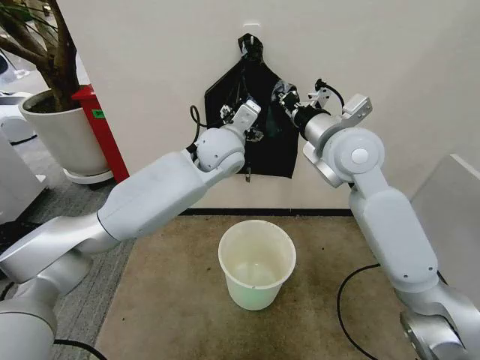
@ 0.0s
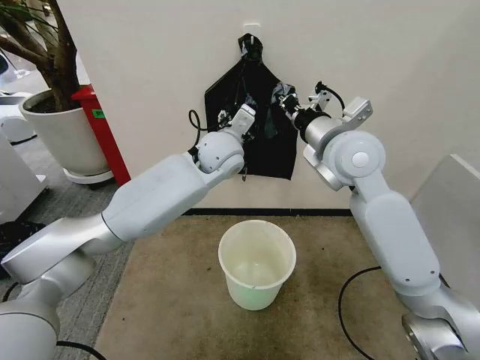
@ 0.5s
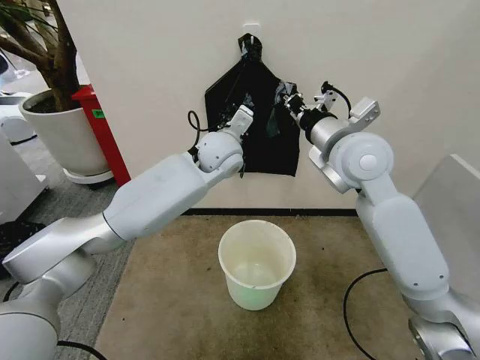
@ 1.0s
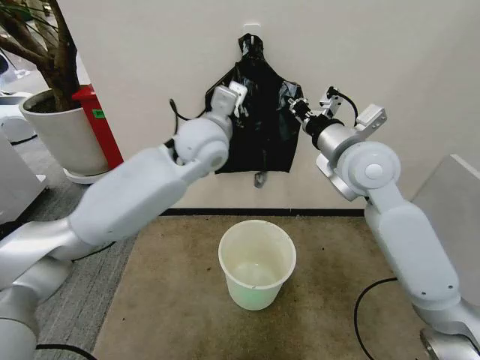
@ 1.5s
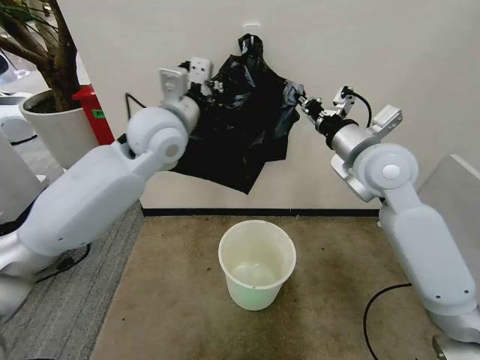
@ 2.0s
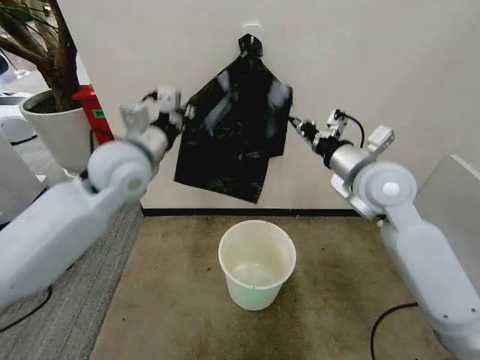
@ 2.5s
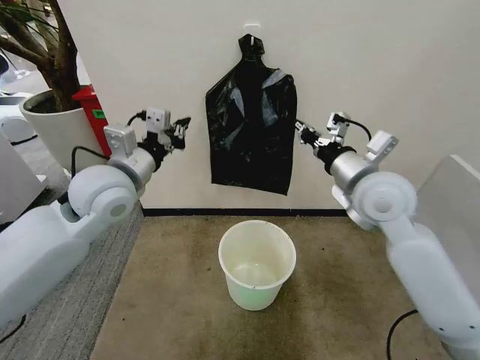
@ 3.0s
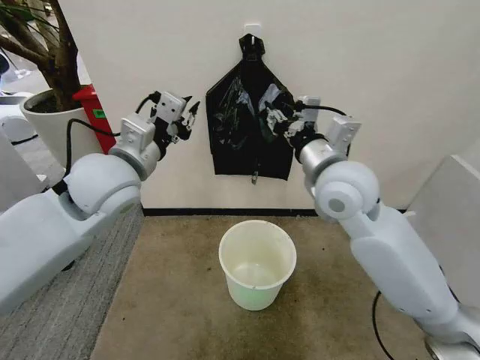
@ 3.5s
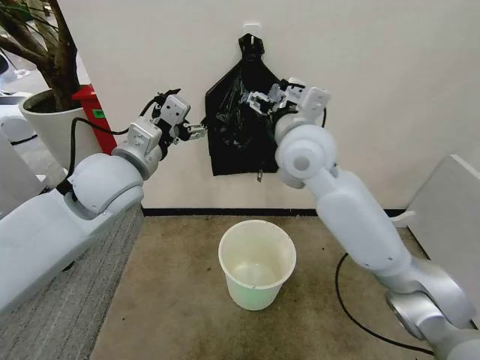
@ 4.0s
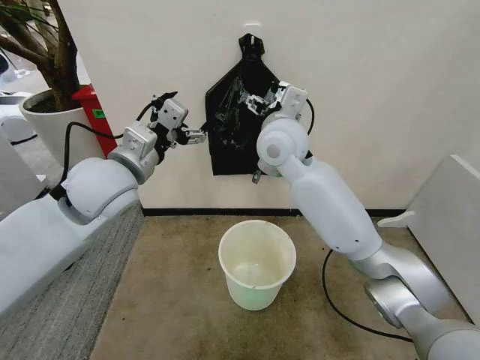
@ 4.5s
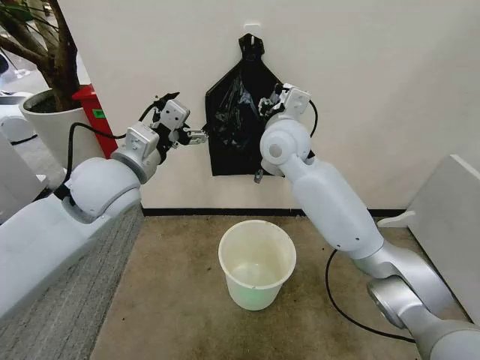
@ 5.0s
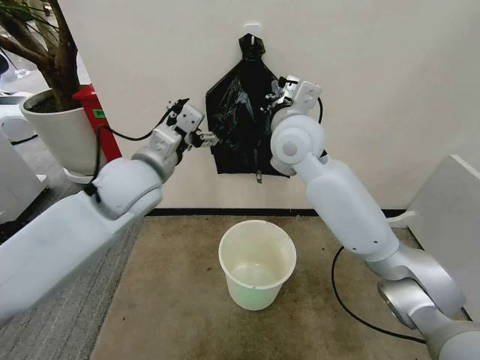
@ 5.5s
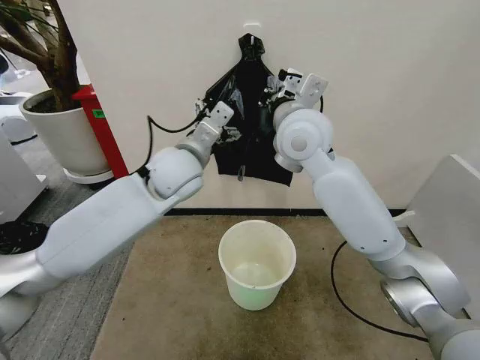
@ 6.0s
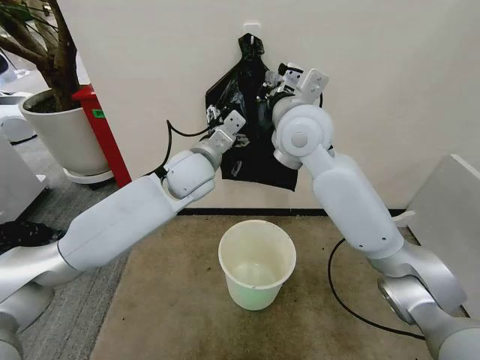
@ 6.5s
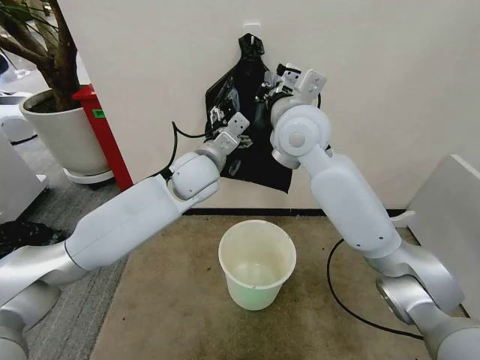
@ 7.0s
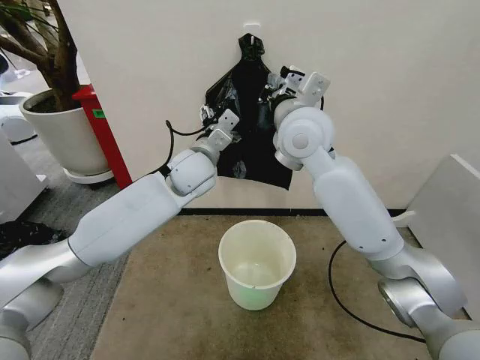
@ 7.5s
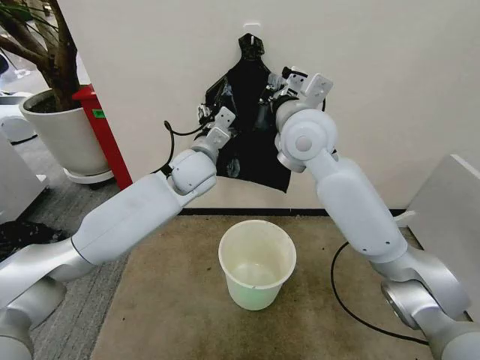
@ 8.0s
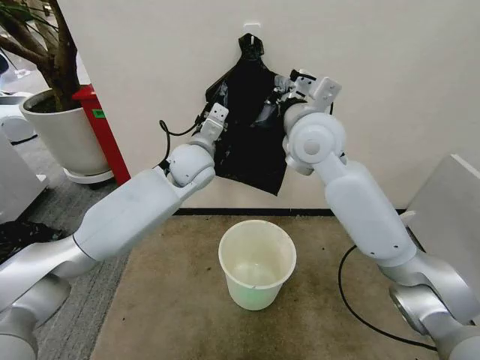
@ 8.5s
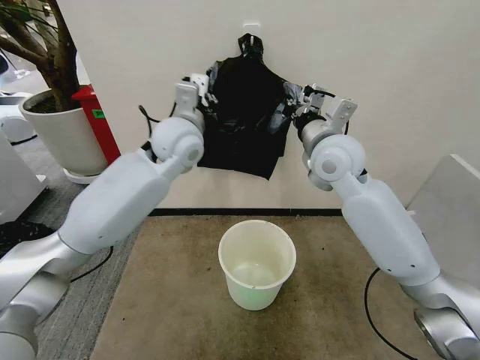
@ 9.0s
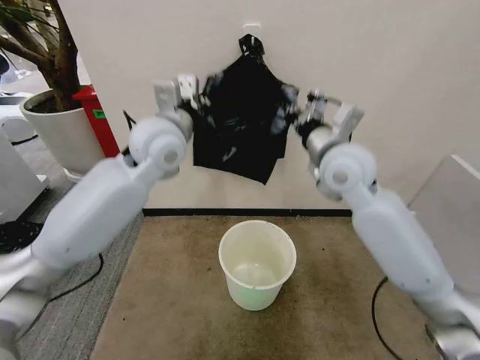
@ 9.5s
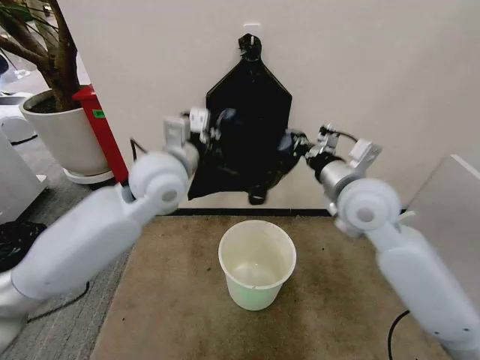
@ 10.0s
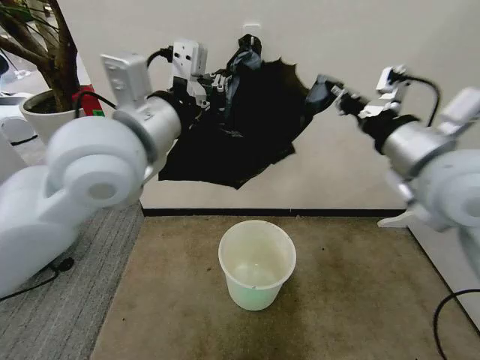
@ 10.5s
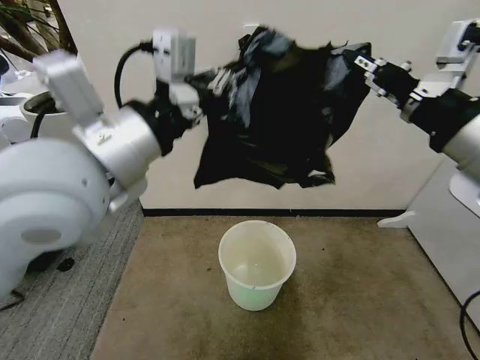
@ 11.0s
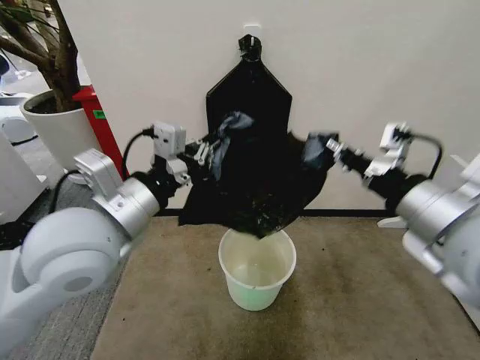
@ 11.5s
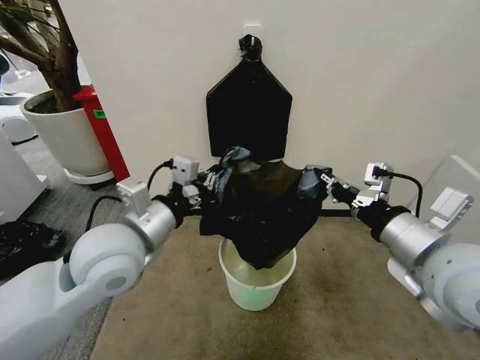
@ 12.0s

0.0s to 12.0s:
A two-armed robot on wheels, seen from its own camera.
Task of the whole recording: Place the garbage bag over the trash bin.
0.0s to 2.0s: The right gripper is displaced to the right by about 5 cm. Meanwhile the left gripper heads to the left and upward, covering some 15 cm, and closes its fingers.
2.0s to 4.0s: The right gripper heads to the left, covering approximately 15 cm, and opens its fingers; the left gripper shifts approximately 10 cm backward and to the left, and opens its fingers.
4.0s to 6.0s: The left gripper moves to the right and forward, about 10 cm; the right gripper closes.
6.0s to 8.0s: The left gripper moves some 5 cm.
8.0s to 10.0s: The left gripper moves backward and upward, roughly 10 cm, and closes its fingers; the right gripper is displaced to the right, downward and backward by approximately 15 cm.
10.0s to 12.0s: The right gripper heads backward and to the right, covering about 15 cm, and goes upward and returns, roughly 15 cm each way. Meanwhile the left gripper shifts about 10 cm backward, and moves about 10 cm upward and comes back.

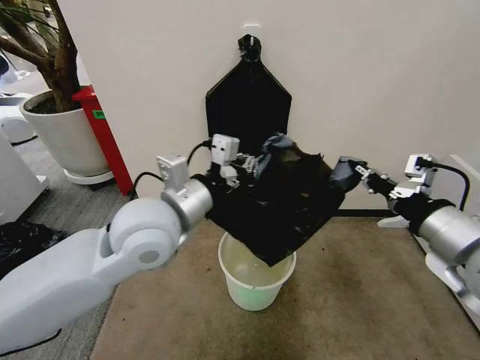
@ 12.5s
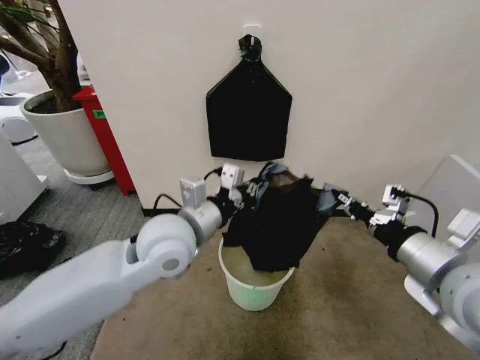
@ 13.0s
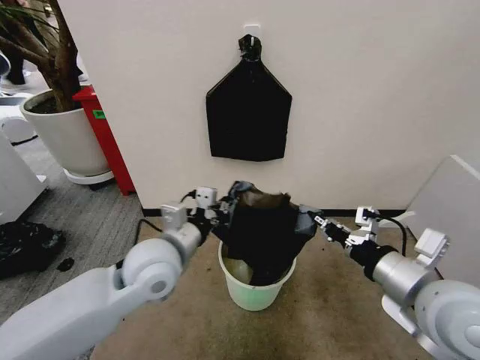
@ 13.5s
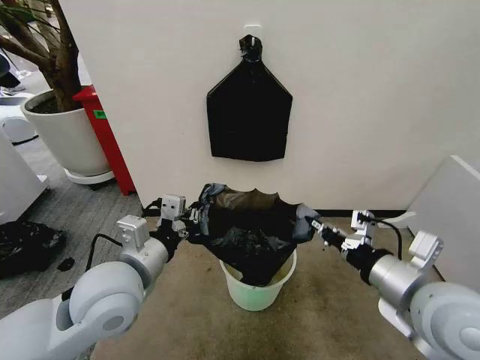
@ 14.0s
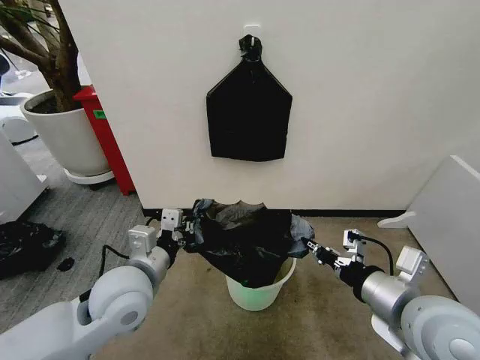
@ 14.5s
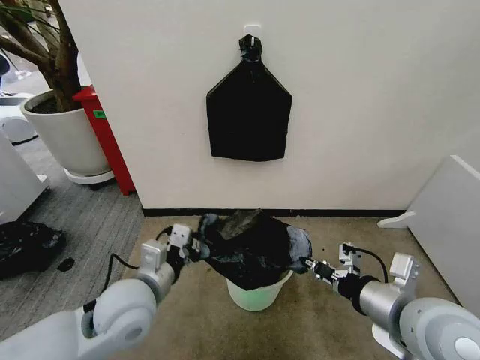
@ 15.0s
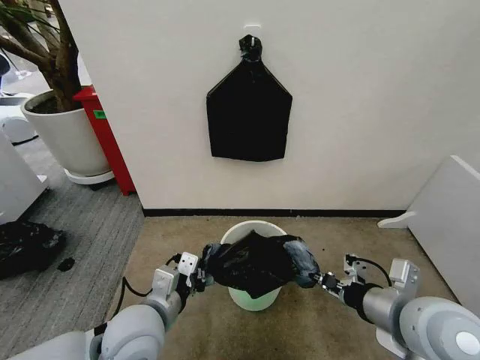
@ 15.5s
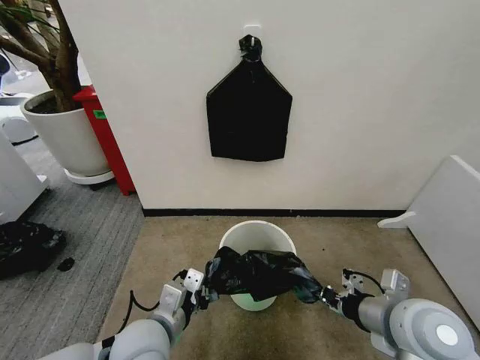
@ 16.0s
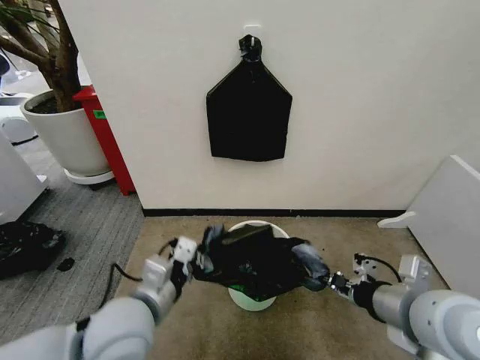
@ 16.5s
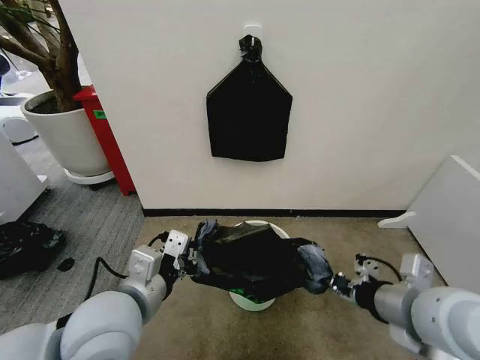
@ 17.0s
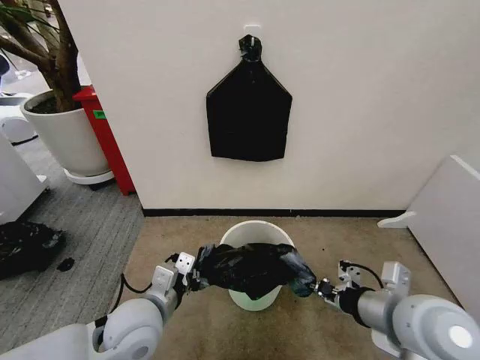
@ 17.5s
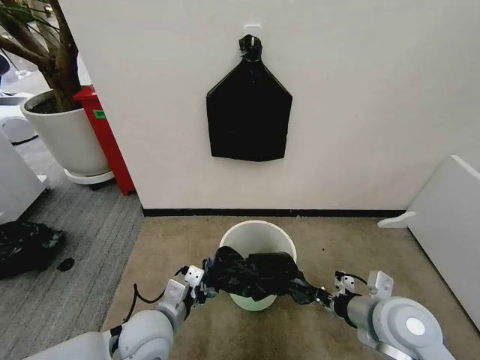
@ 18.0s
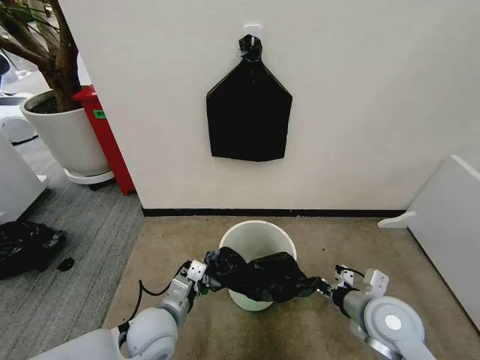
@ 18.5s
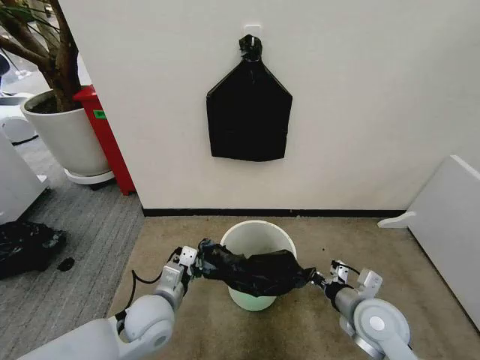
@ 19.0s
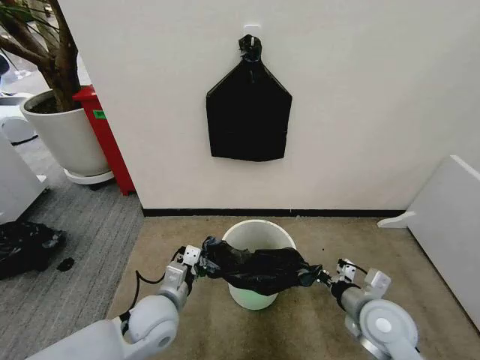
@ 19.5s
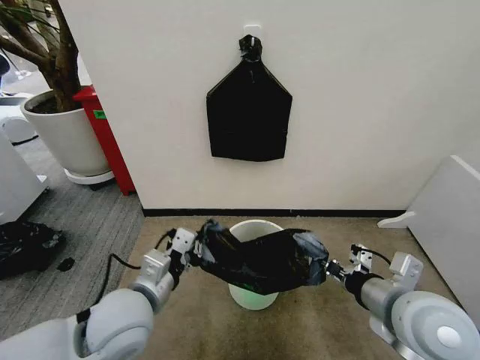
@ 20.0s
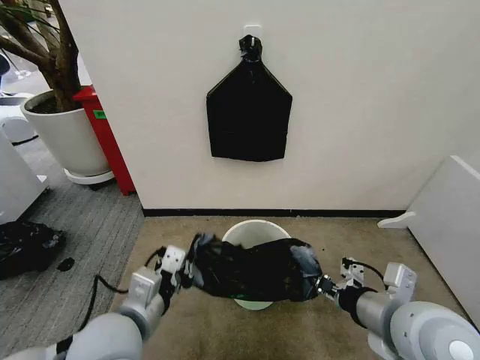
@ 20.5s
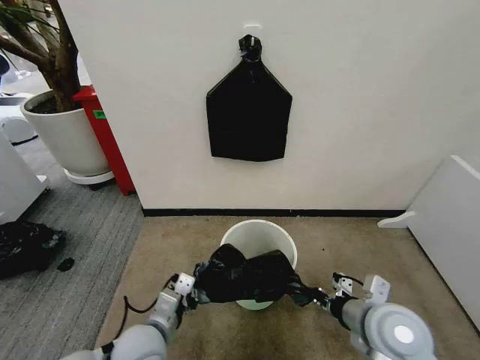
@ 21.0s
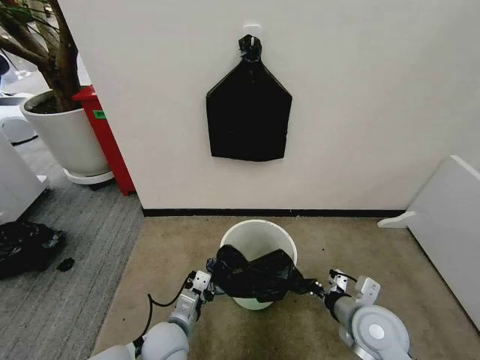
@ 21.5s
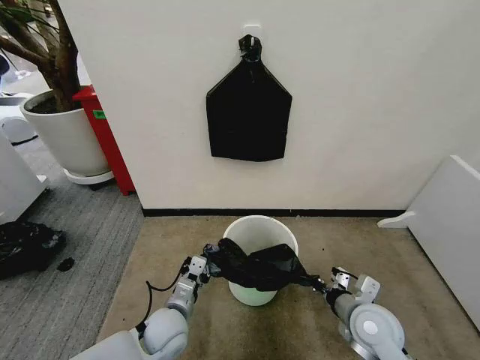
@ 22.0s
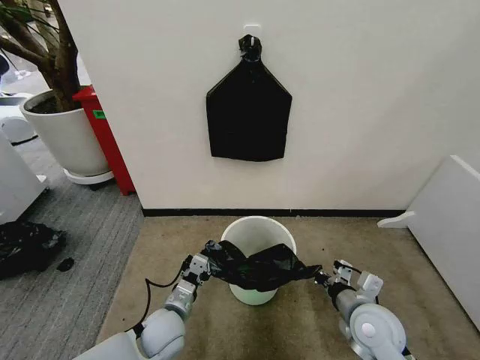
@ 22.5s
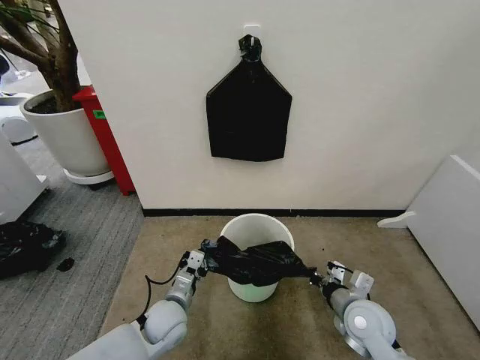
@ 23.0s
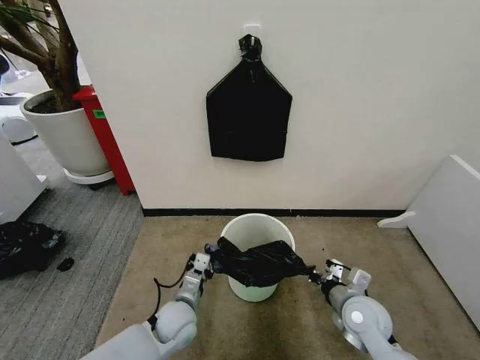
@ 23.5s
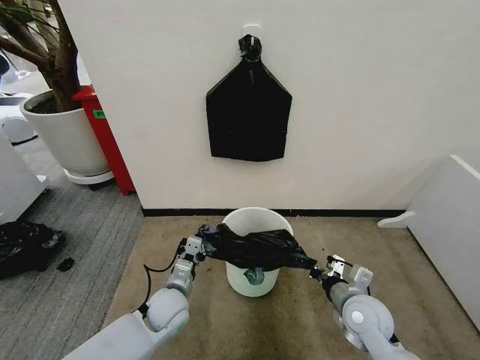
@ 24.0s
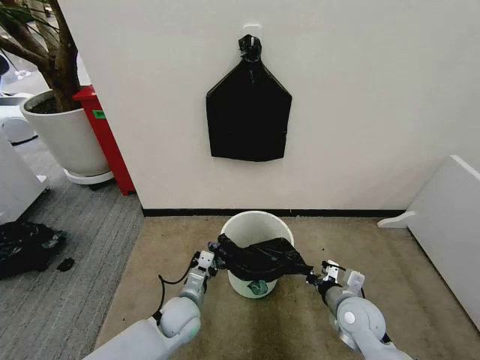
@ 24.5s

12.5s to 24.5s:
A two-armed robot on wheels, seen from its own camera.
Task of the whole recording: Place the garbage bag over the trash bin.
12.5s to 14.5s: The left gripper goes about 15 cm downward and to the left, while the right gripper goes about 10 cm downward.
14.5s to 16.5s: The left gripper travels backward by approximately 5 cm, and goes downward and returns, about 5 cm each way.
16.5s to 18.5s: The grippers both shift downward by approximately 15 cm.
18.5s to 20.5s: The right gripper travels upward and backward by about 15 cm; the left gripper travels upward by approximately 15 cm.
20.5s to 22.5s: The two grippers go roughly 20 cm downward.
22.5s to 24.5s: The right gripper heads downward, covering roughly 5 cm. Meanwhile the left gripper changes place by approximately 5 cm.

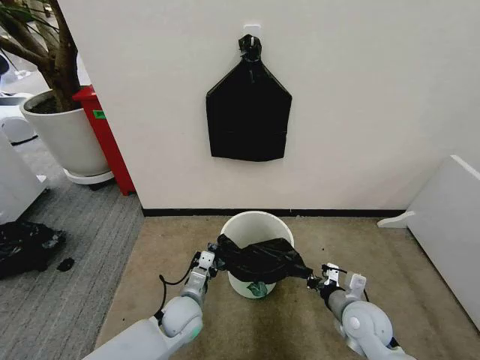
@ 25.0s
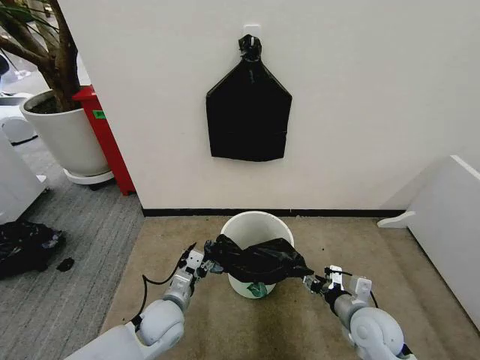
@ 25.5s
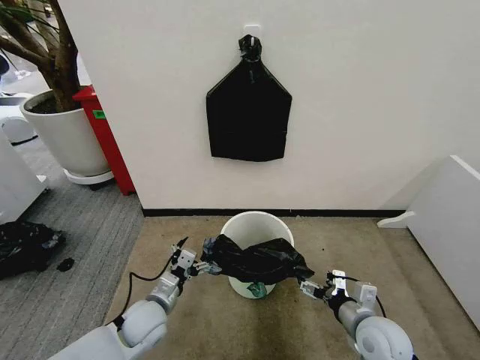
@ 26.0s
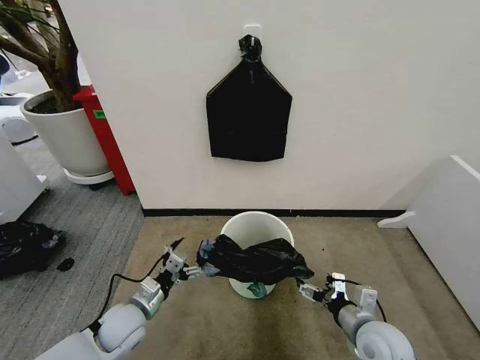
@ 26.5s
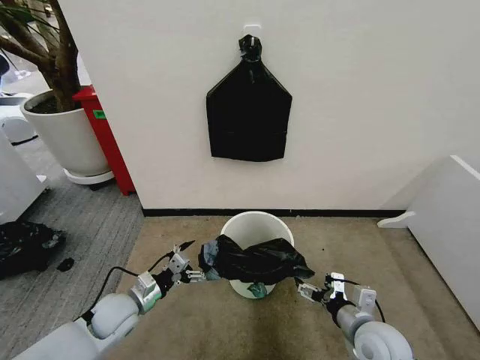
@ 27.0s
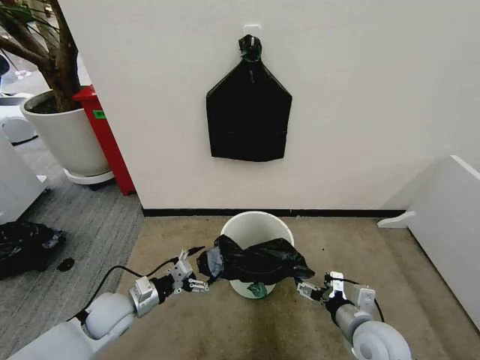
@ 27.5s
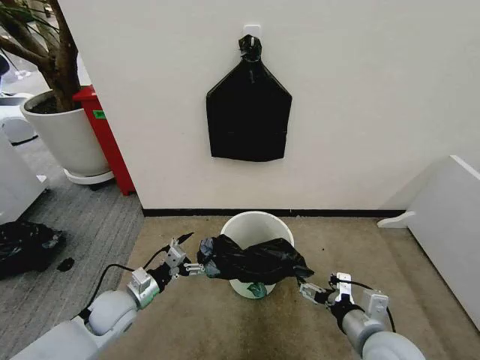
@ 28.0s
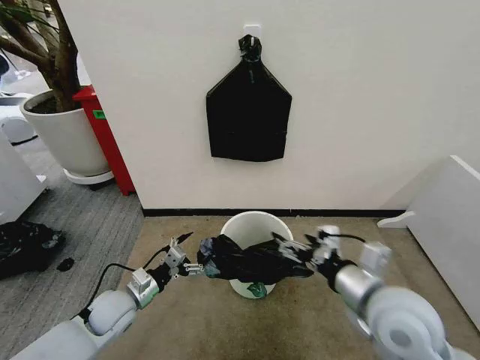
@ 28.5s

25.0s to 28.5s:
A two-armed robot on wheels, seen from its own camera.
Task of the whole recording: Place the garbage bag over the trash bin.
25.0s to 27.0s: The left gripper is displaced to the left by roughly 15 cm, and opens, while the right gripper moves about 5 cm, and opens its fingers.
27.0s to 28.5s: The right gripper heads upward, covering about 15 cm.
